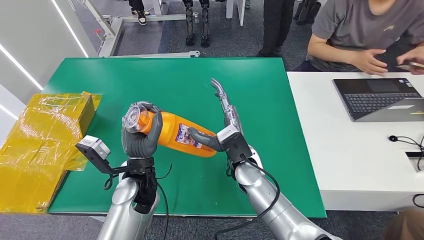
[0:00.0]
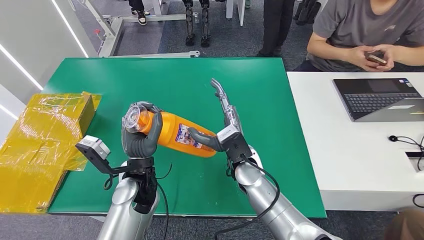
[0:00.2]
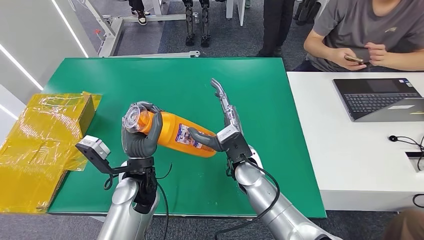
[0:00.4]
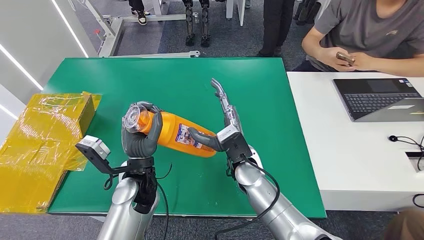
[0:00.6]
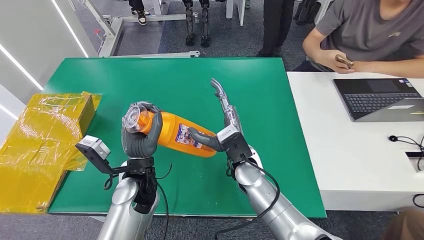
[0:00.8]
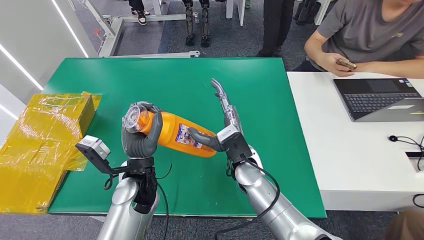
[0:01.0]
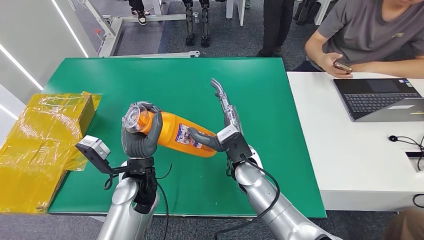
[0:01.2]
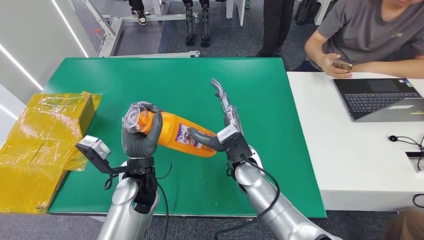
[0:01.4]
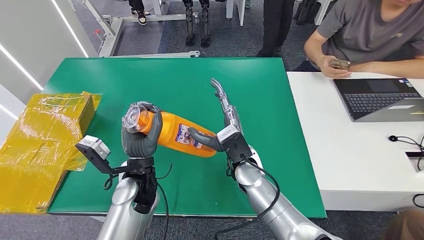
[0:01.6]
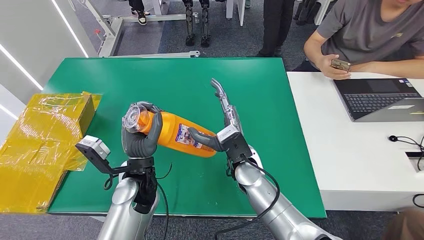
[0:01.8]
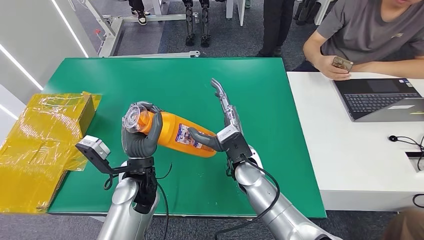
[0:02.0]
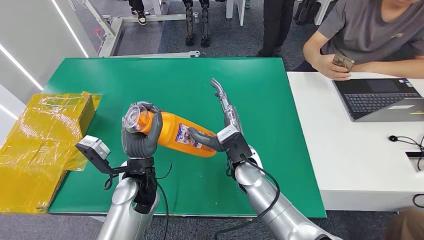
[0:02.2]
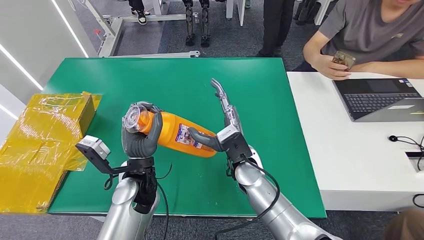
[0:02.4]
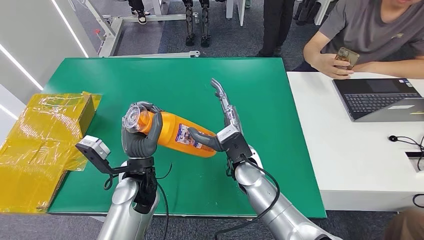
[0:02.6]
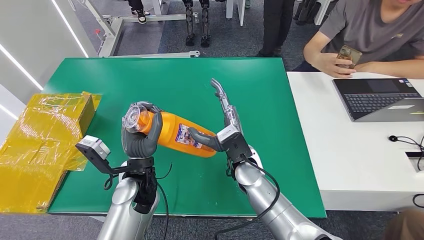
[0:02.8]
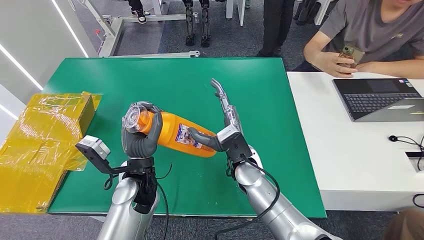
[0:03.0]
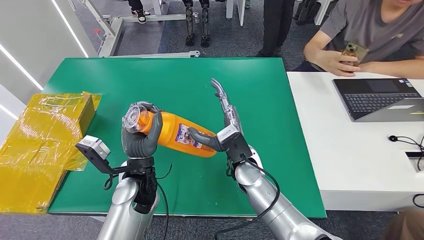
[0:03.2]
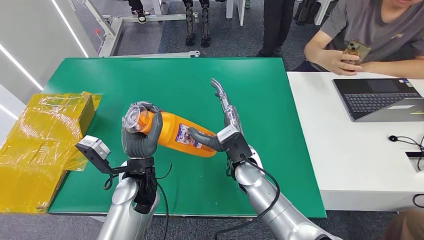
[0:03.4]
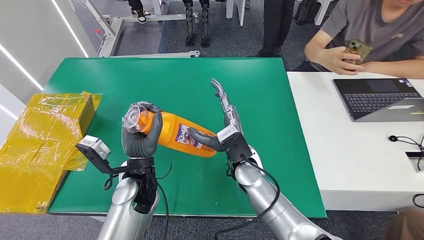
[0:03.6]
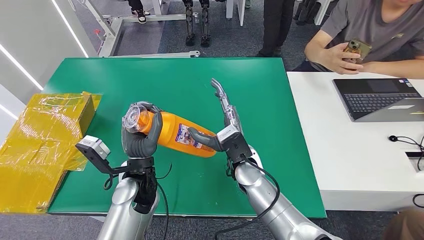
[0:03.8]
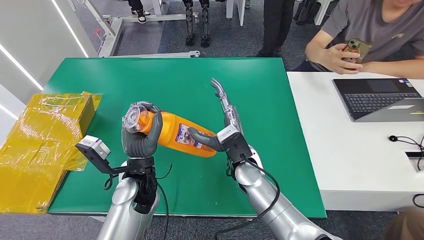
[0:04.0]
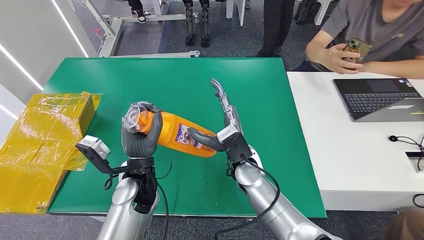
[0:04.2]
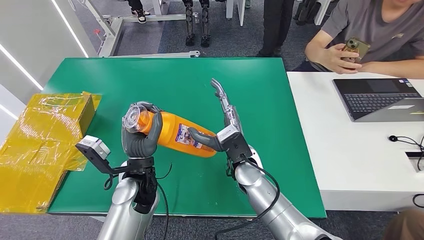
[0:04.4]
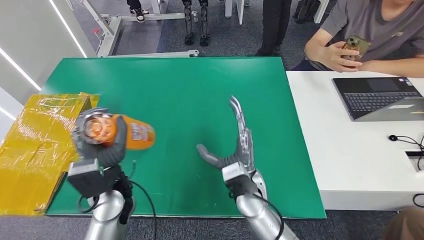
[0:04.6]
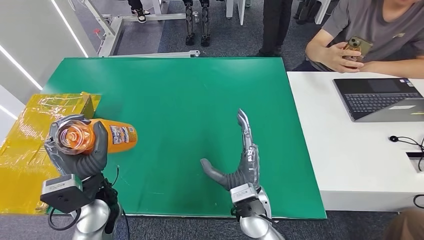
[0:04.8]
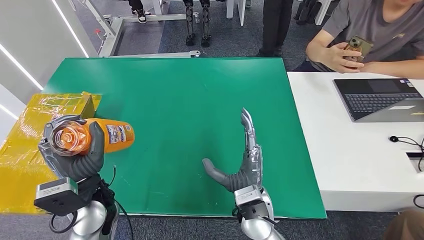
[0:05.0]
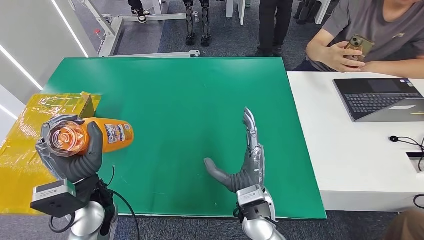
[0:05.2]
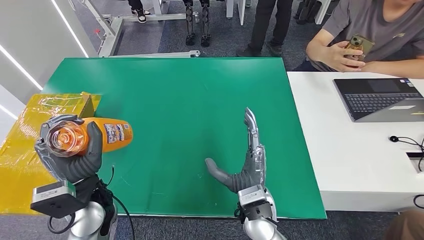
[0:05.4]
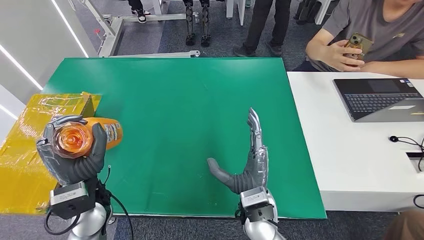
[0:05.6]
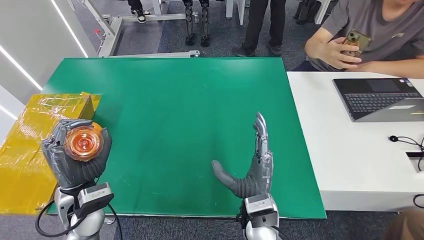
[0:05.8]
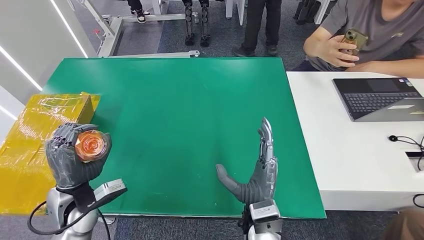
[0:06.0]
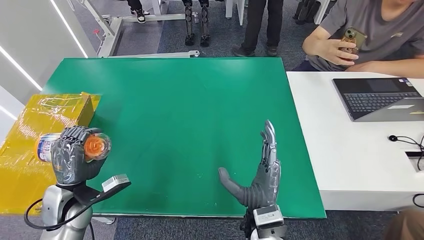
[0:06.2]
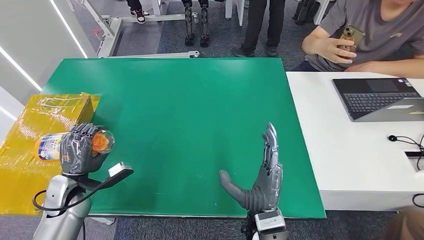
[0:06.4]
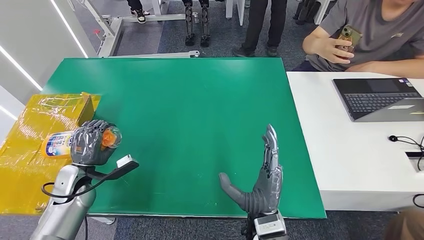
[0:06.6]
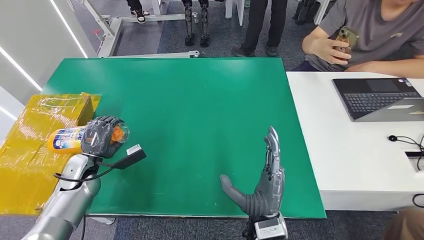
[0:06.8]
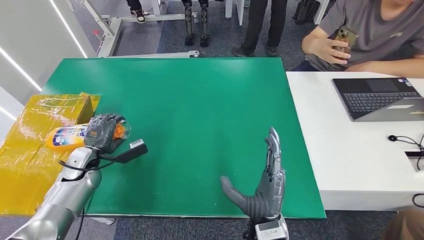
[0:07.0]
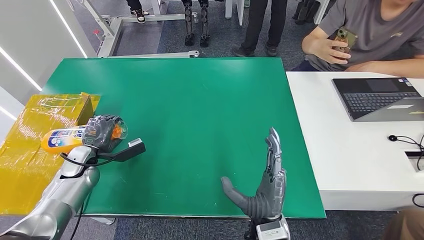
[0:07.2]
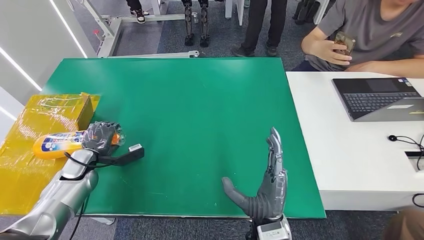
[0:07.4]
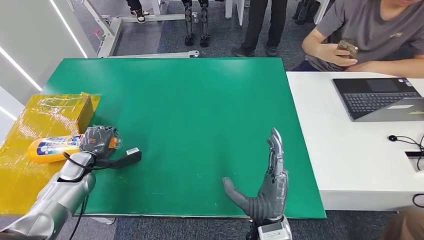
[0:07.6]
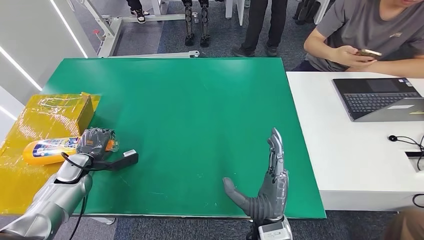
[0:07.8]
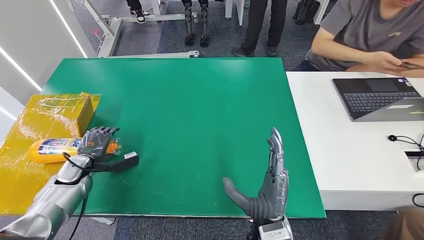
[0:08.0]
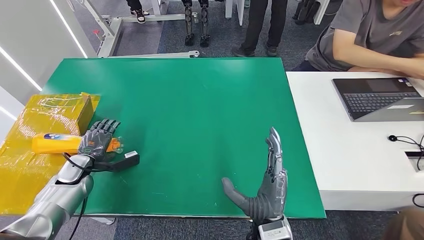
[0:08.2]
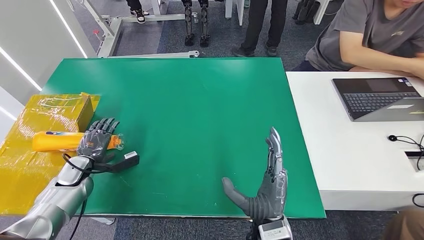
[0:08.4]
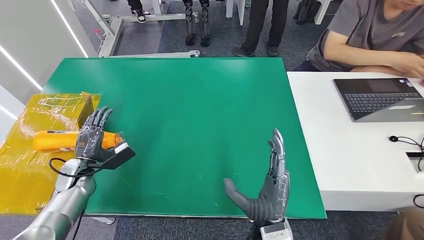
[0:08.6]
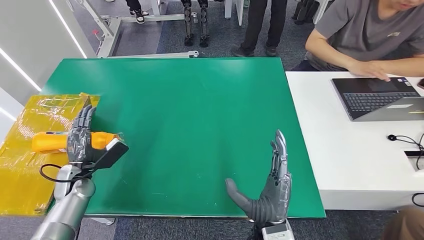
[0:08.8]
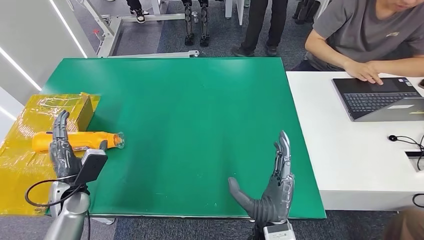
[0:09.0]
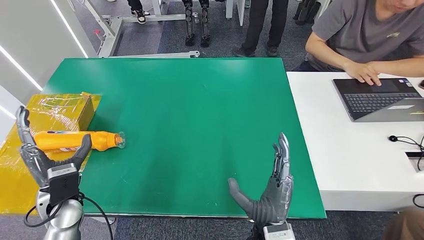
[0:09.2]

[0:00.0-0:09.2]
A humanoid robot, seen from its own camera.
Step, 0.0 to 9.2 s: Turn the bottle to the front side.
0.0 to 3.0 s: Both hands stay put.
4.6 to 6.2 s: The left hand travels to the left by approximately 15 cm. The right hand moves backward, roughly 10 cm.
6.2 to 7.6 s: The left hand is displaced forward, to the left and downward by about 15 cm.
7.6 to 9.2 s: The left hand travels backward, upward and to the right by approximately 15 cm.

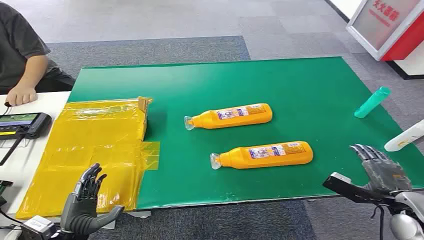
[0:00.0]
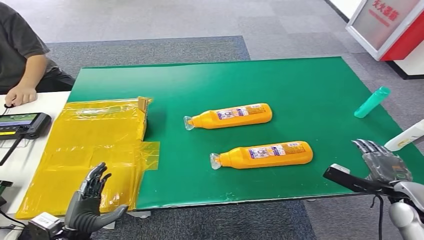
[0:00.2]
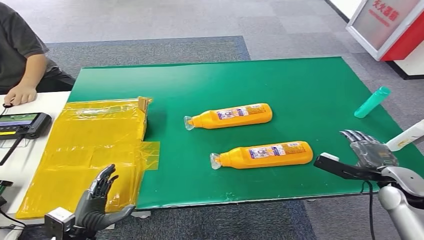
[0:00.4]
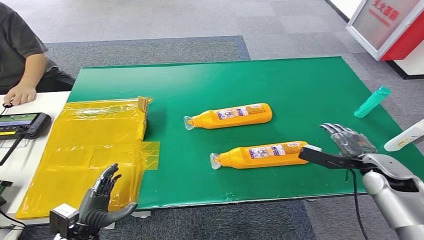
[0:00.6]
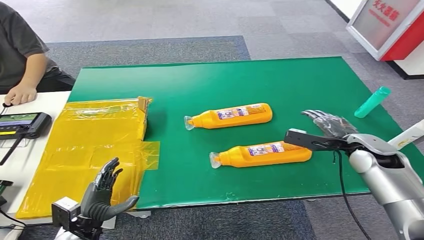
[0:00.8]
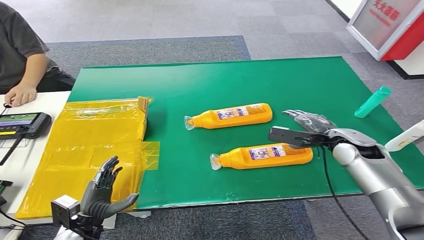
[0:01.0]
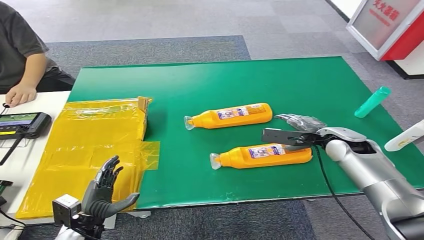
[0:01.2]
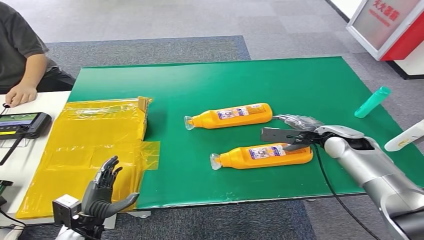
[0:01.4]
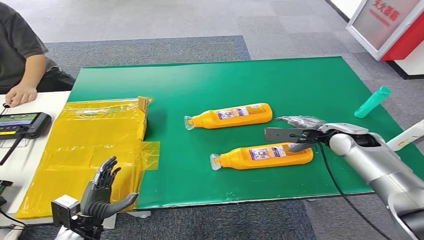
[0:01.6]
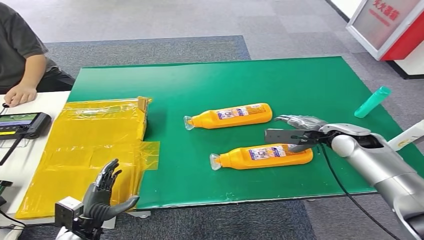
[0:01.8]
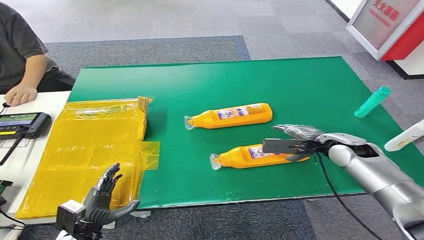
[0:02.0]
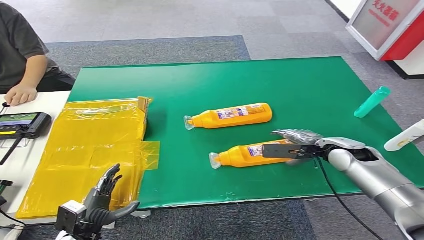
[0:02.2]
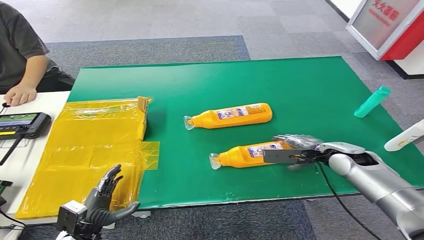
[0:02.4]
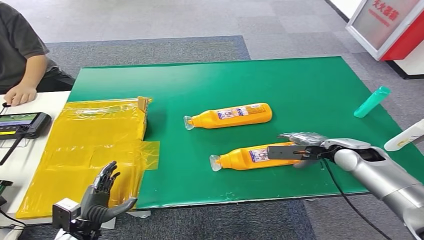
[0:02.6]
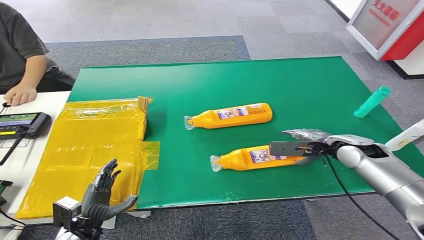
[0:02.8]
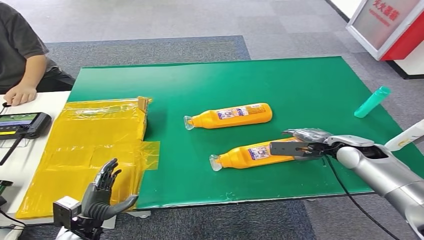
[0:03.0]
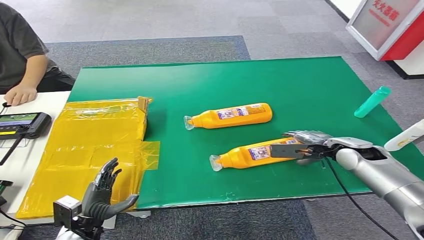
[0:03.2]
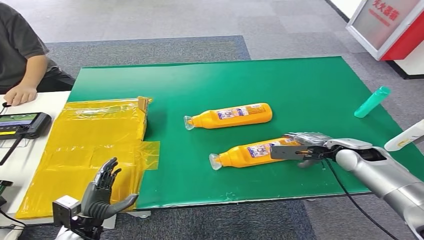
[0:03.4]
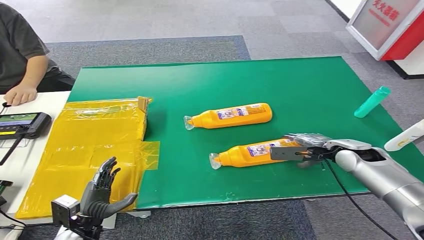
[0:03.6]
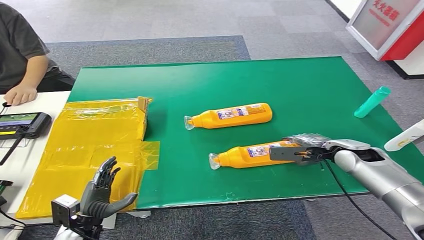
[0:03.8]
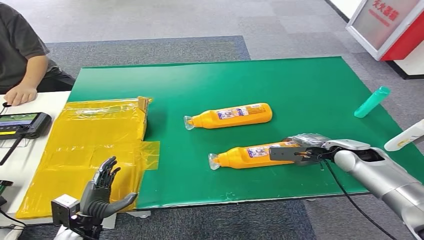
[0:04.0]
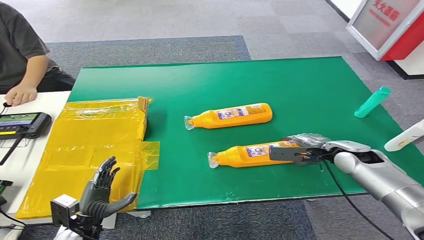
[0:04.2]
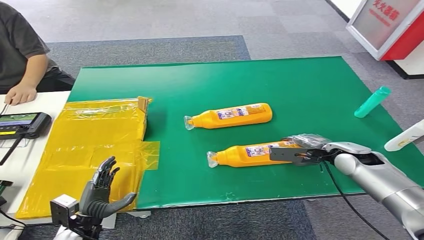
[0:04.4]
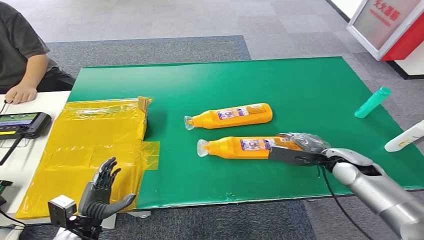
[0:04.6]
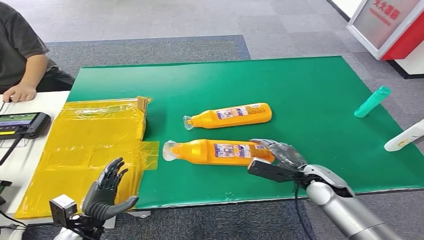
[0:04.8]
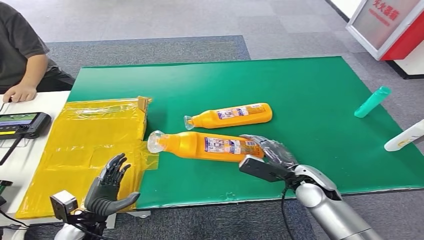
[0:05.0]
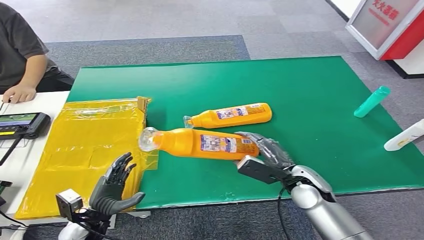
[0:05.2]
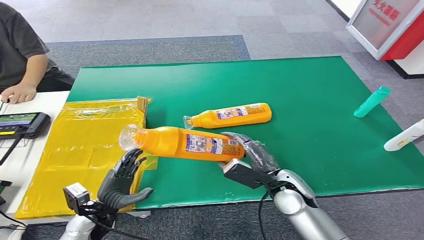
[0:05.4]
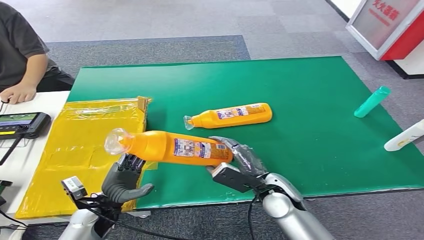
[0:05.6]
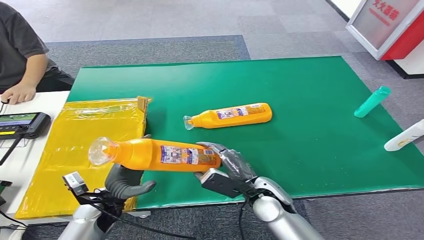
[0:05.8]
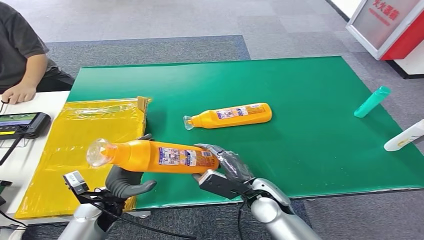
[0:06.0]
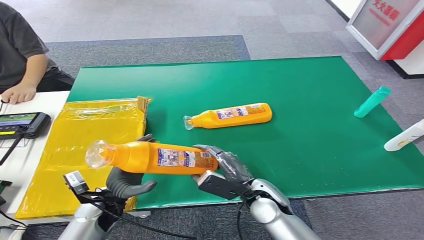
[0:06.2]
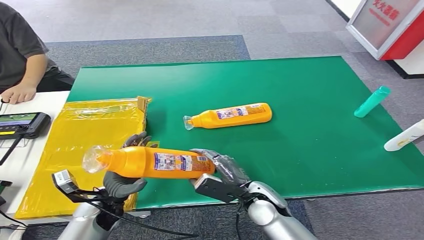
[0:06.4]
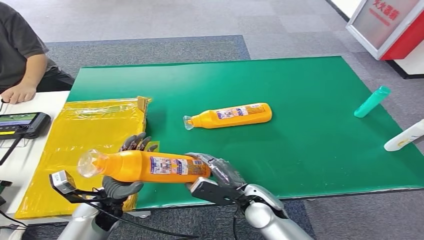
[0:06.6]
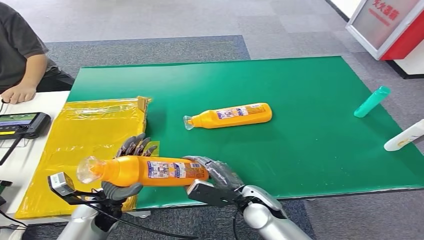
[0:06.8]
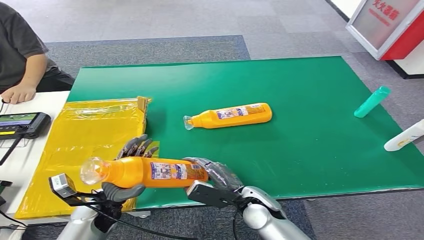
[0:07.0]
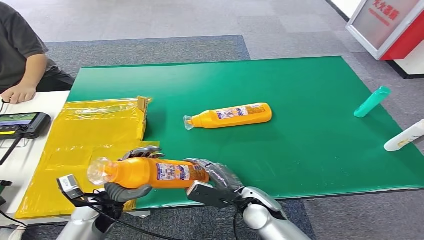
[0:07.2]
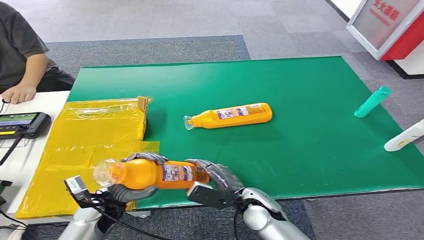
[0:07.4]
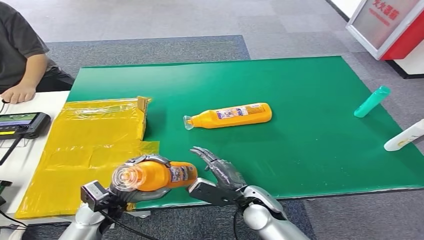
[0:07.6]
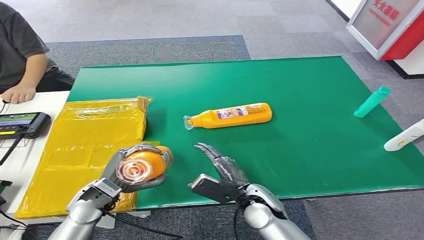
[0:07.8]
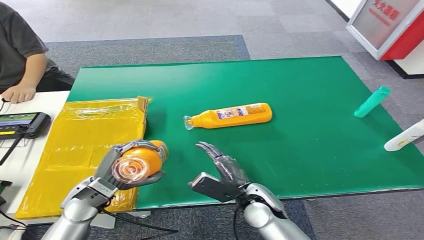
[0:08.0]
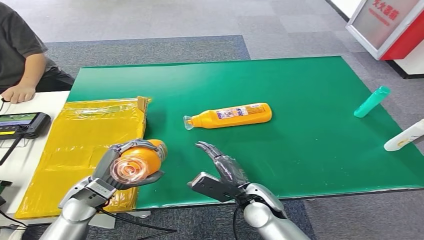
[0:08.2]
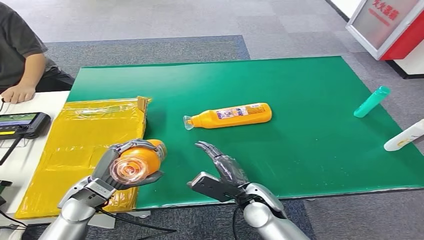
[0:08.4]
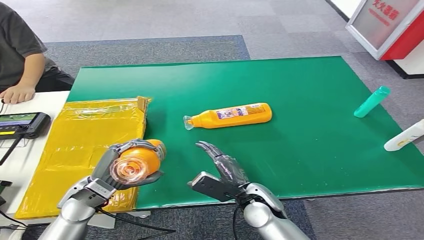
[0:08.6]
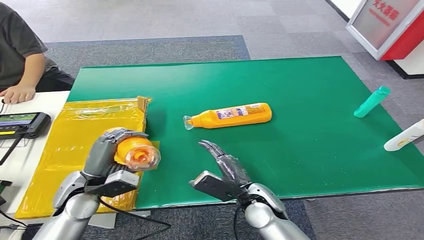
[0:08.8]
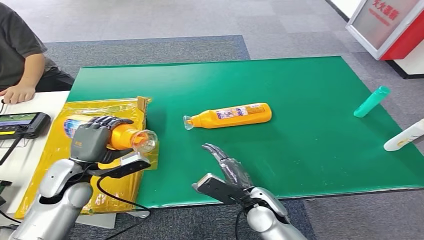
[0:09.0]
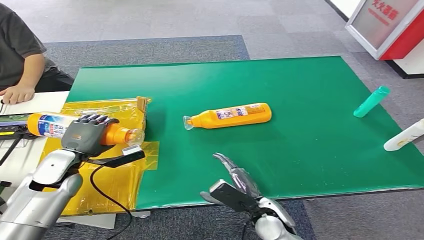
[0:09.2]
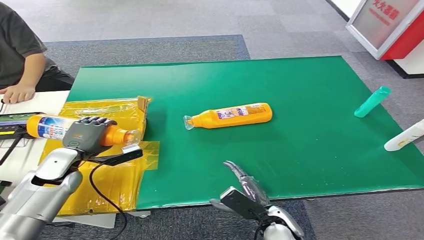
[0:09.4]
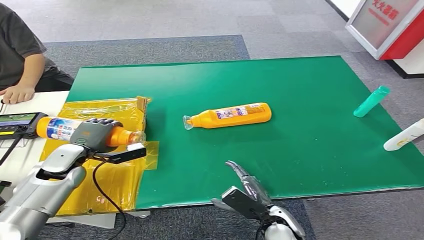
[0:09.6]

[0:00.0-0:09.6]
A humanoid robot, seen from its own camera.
Step, 0.0 to 5.0 s: Pick up the bottle from the table.
1.6 to 3.2 s: The right hand changes place by some 5 cm.
3.2 to 4.8 s: The right hand is displaced backward, to the left and downward by about 10 cm.
4.8 to 6.4 s: The left hand is displaced forward and to the right by some 10 cm; the right hand is displaced to the left by approximately 15 cm.
6.4 to 8.0 s: The left hand travels upward by about 5 cm.
8.0 to 9.6 s: The left hand travels forward and to the left by about 15 cm; the right hand ends up some 10 cm from where it was.
